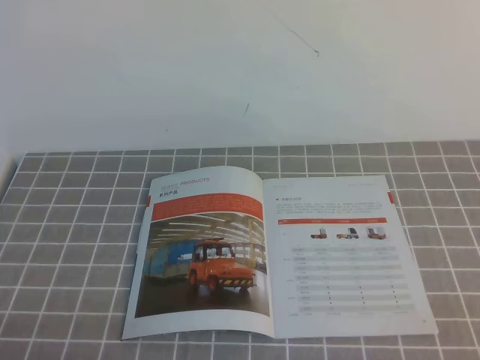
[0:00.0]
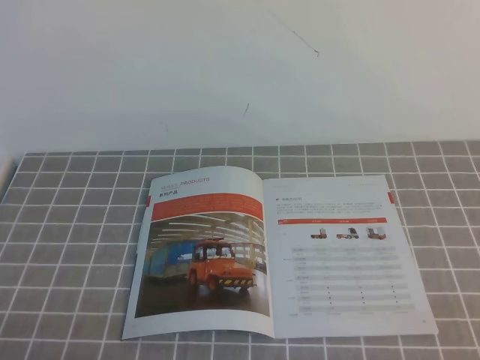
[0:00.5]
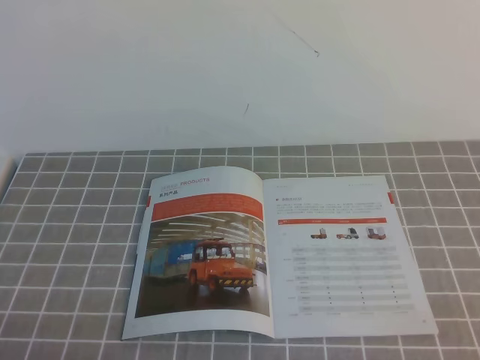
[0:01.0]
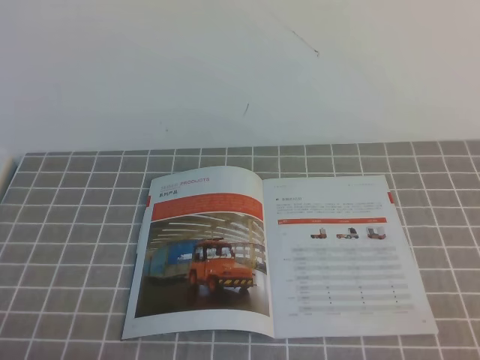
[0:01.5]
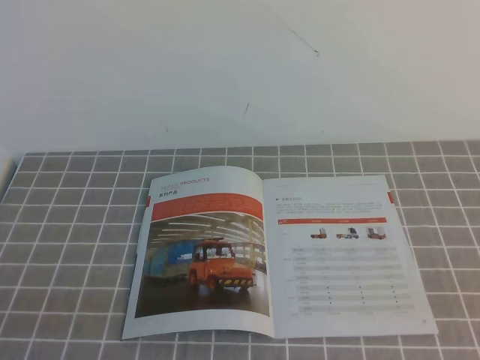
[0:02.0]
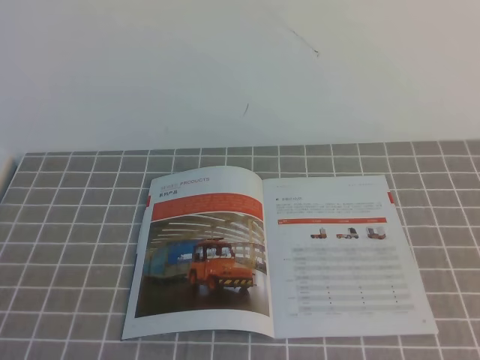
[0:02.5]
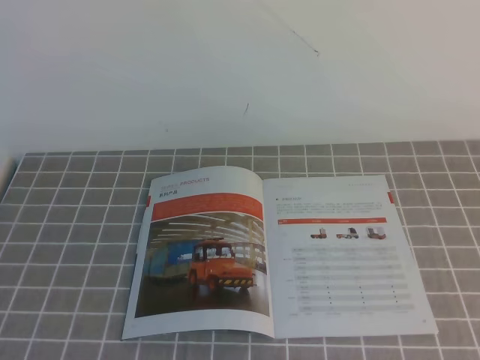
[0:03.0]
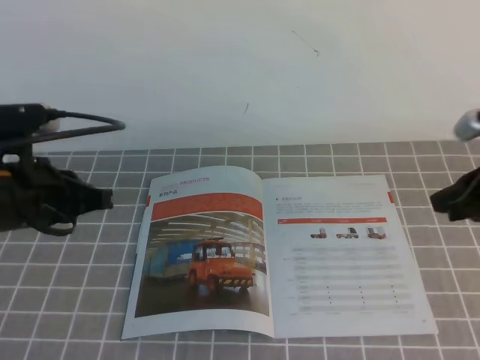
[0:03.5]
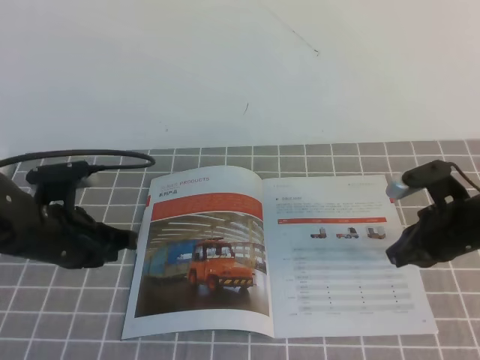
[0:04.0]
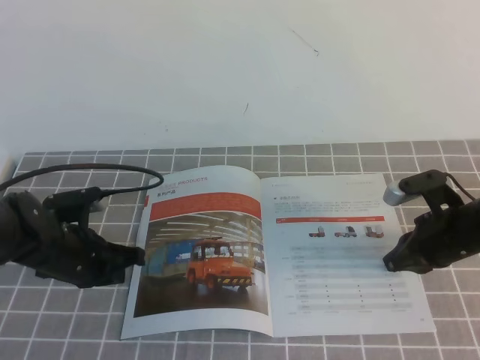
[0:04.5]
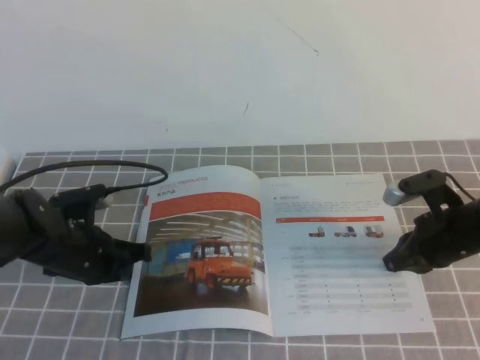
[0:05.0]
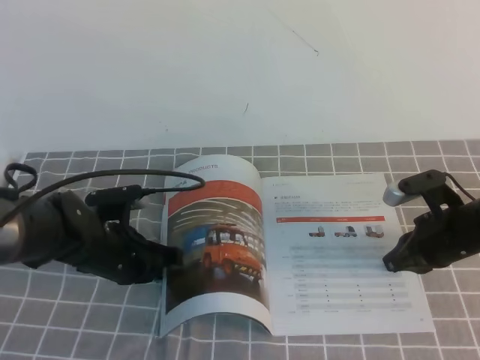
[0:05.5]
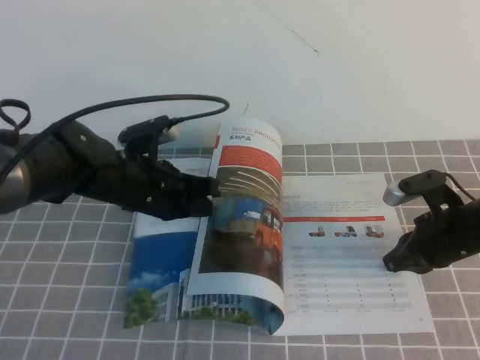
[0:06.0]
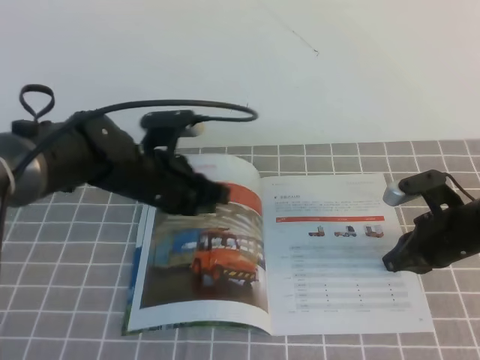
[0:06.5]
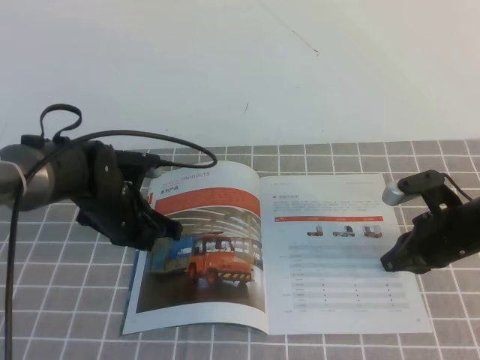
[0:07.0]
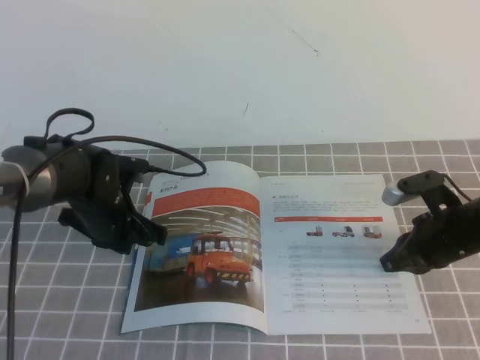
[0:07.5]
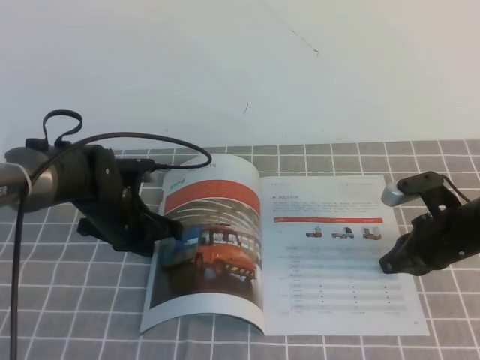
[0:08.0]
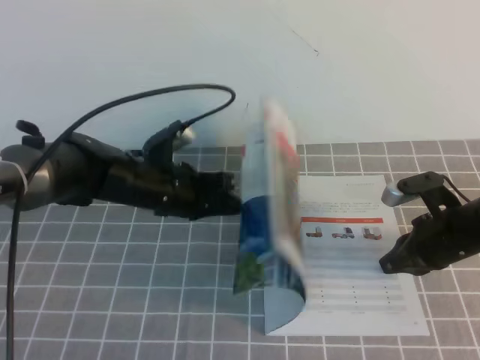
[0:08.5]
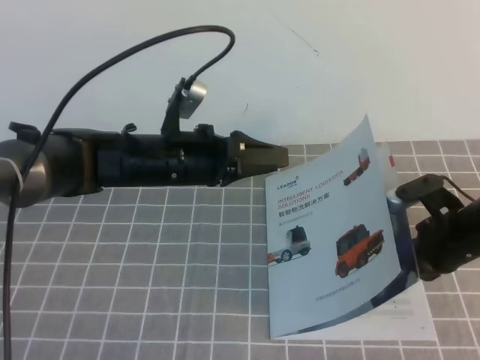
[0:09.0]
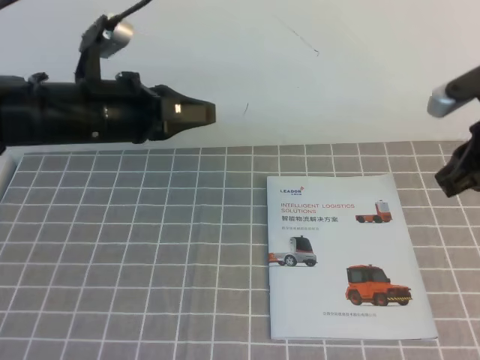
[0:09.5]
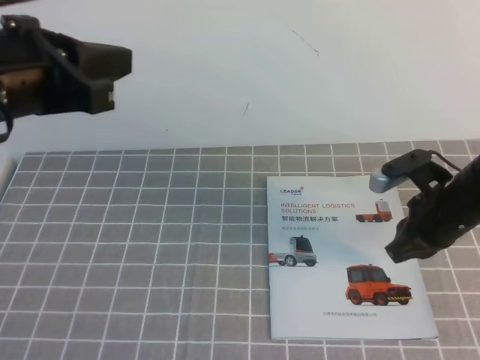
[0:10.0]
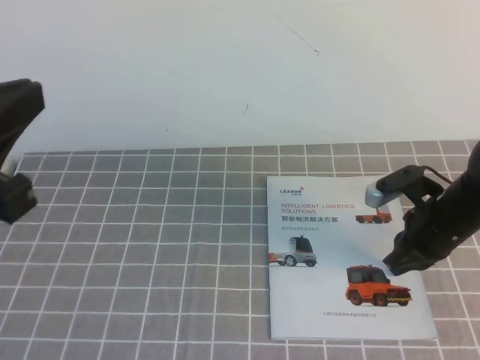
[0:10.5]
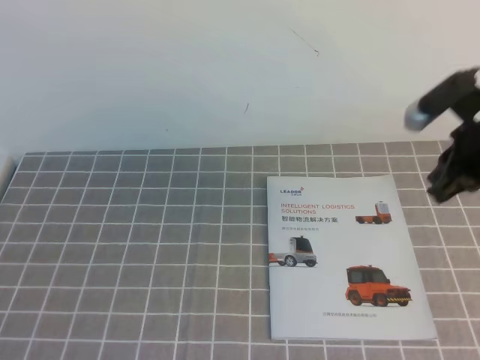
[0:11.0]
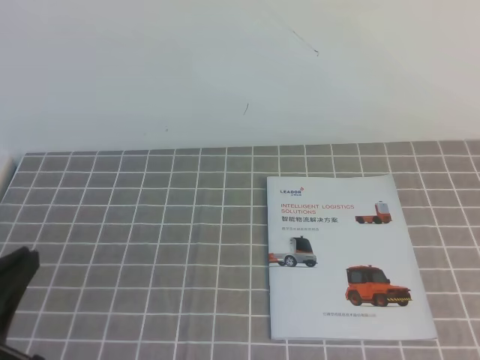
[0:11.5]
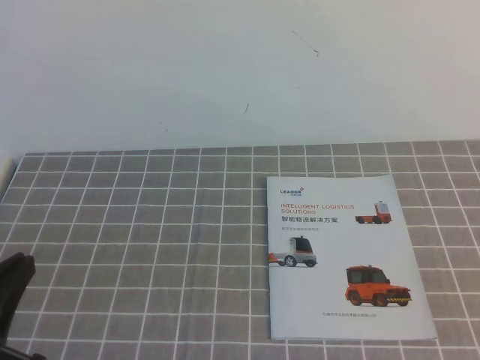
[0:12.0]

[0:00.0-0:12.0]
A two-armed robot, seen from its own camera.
Task of the whole recording: on the grey tablecloth, hold the book with one hand and close it with the other.
0:02.0 to 0:04.0: The two grippers go roughly 30 cm forward.
0:04.0 to 0:06.0: The left gripper goes about 10 cm to the right.
0:06.0 to 0:08.0: The left gripper is displaced downward by approximately 5 cm.
0:08.0 to 0:10.0: The right gripper goes about 5 cm upward, while the left gripper moves upward and backward, some 30 cm, and opens, then closes again.
0:10.0 to 0:12.0: The left gripper moves backward and downward, some 20 cm. The right gripper moves backward and upward, some 35 cm.

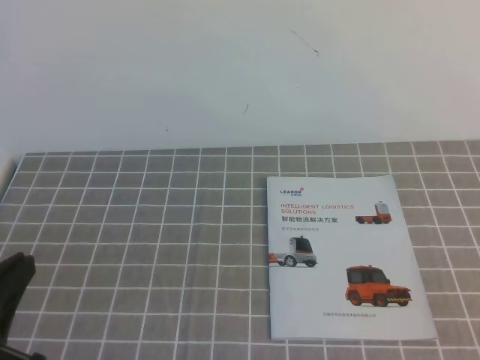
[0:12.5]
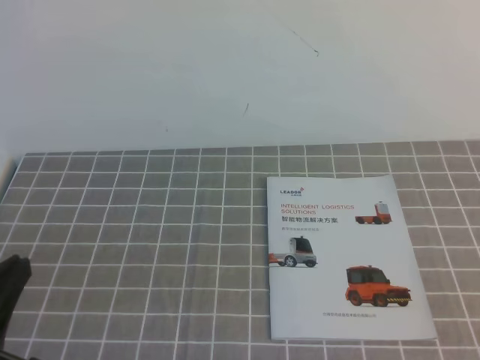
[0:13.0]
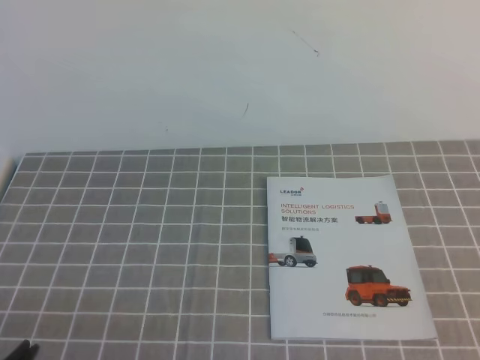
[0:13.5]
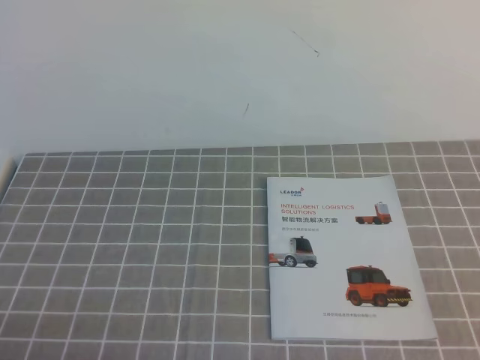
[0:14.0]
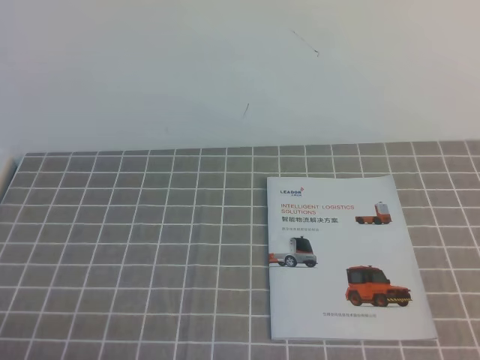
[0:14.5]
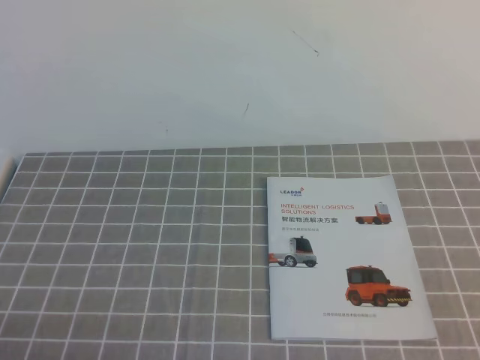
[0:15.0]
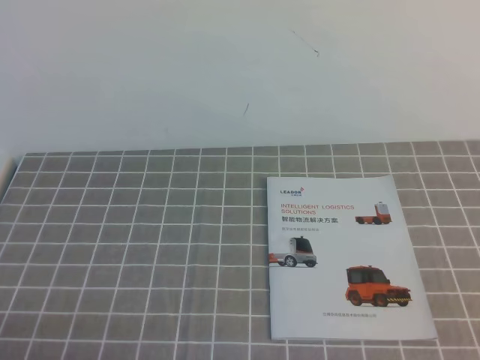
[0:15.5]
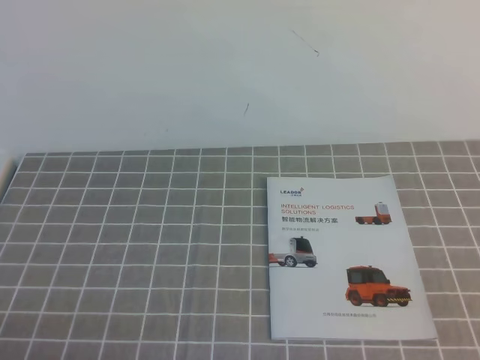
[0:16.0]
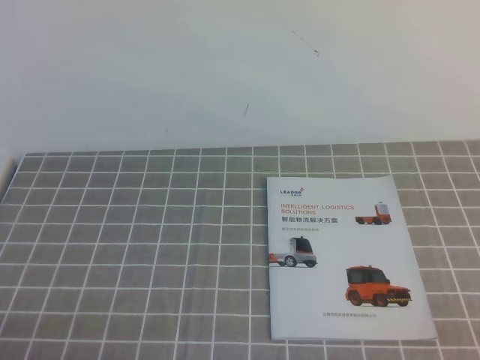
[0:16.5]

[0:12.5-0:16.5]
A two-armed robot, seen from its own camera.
Task of the whole recording: on the grey tablecloth, hold the book with one hand and close it with the other.
Step, 0:12.5 to 0:16.5: Close the open book.
0:12.5 to 0:14.5: The left gripper heads downward, covering approximately 10 cm.

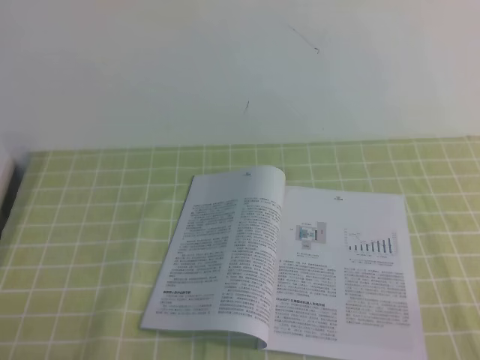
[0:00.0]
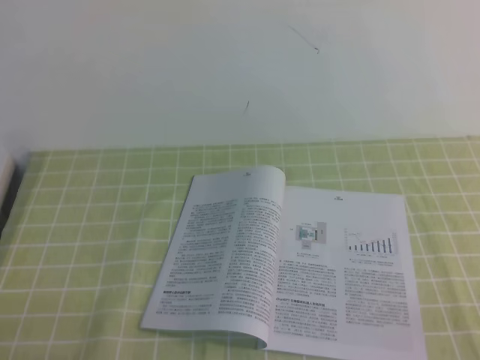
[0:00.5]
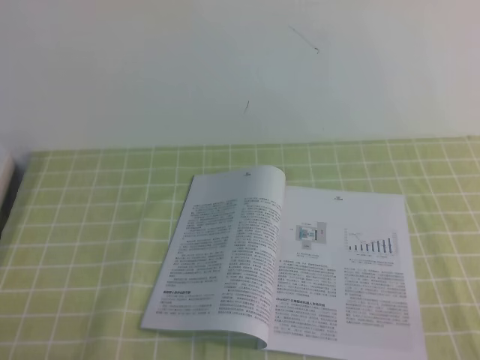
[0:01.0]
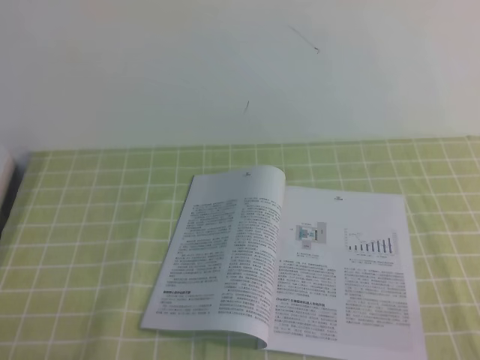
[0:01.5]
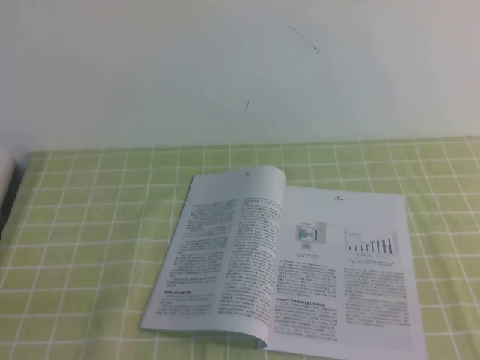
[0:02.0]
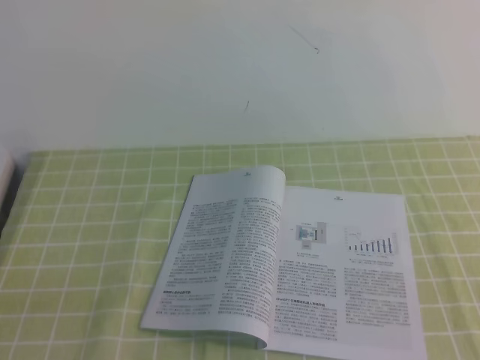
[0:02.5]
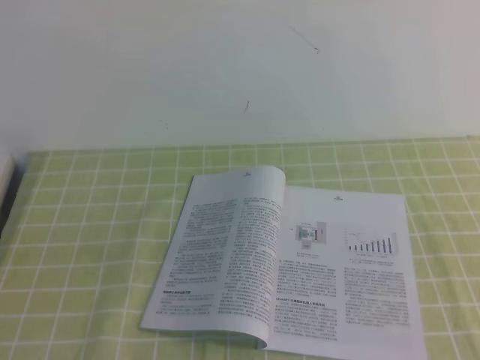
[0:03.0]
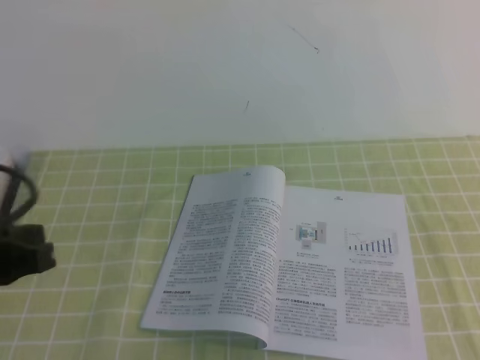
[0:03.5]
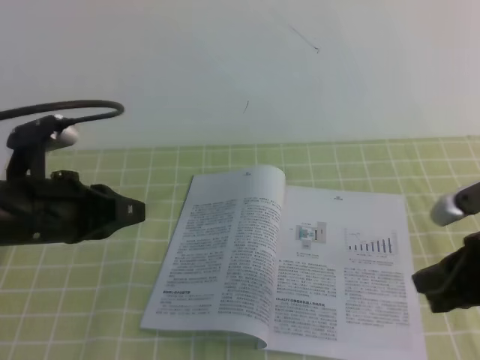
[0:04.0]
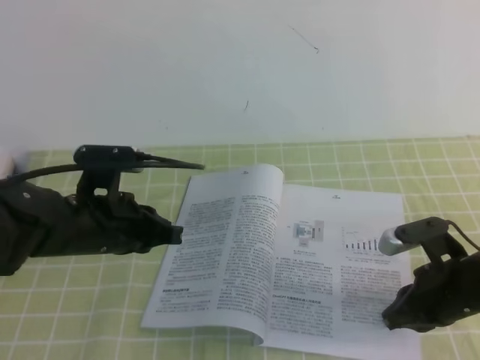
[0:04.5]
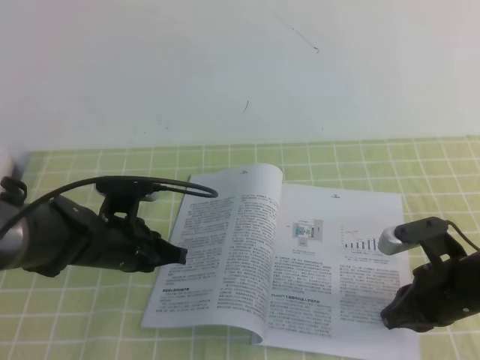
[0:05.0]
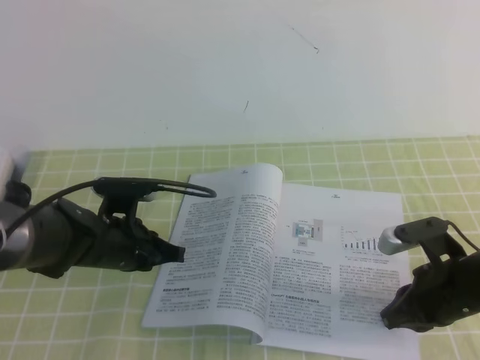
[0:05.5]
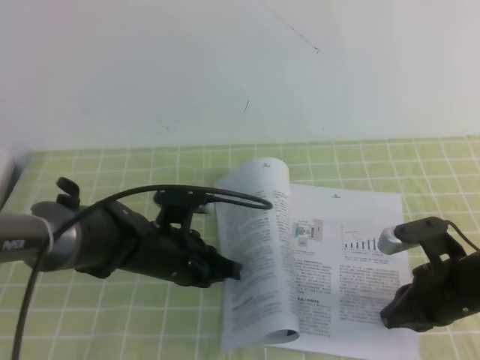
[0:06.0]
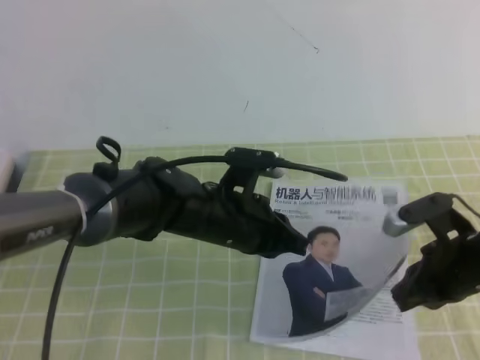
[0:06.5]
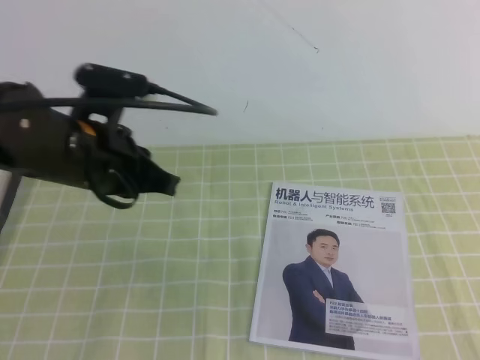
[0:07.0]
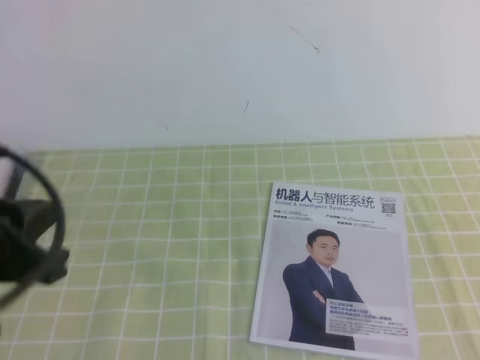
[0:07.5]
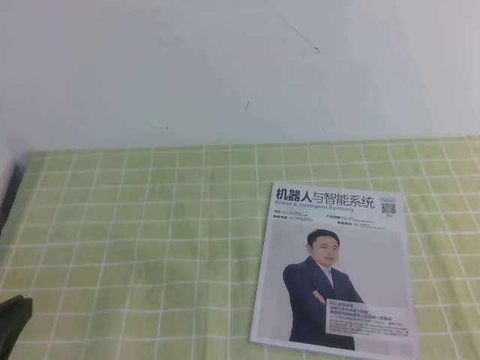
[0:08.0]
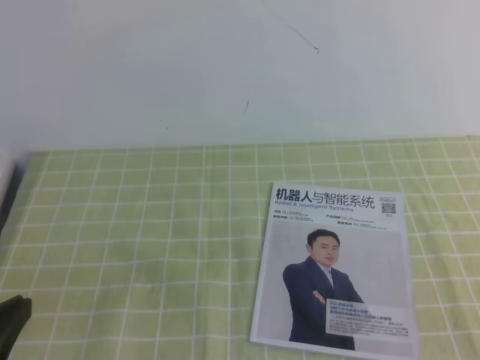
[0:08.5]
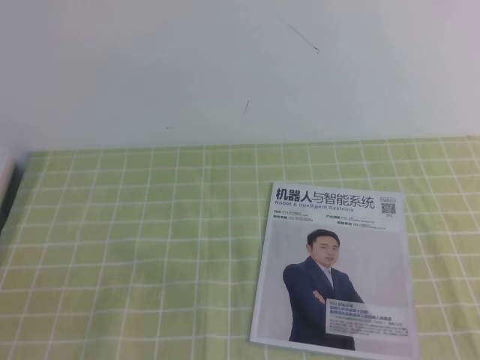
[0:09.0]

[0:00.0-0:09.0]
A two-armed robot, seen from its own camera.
Task of the whole recording: on the green tablecloth, hold the book with one hand and close it with the other.
0:02.0 to 0:04.5: The right gripper shifts approximately 25 cm forward, to the left and downward. Meanwhile the left gripper travels forward by roughly 25 cm.
0:04.5 to 0:07.0: The left gripper is displaced to the right by about 5 cm, and moves about 10 cm downward and comes back, while the right gripper is displaced upward by roughly 15 cm.
0:07.0 to 0:09.0: The left gripper heads backward and to the left, covering roughly 25 cm, while the right gripper moves backward, approximately 20 cm.
